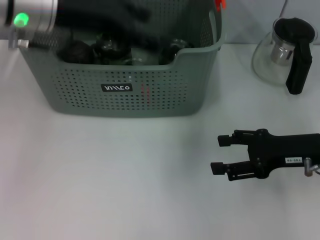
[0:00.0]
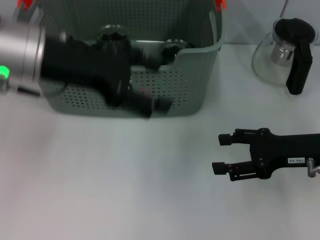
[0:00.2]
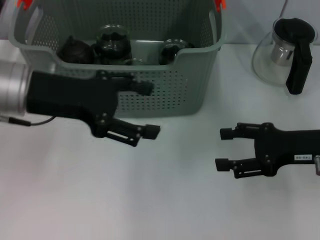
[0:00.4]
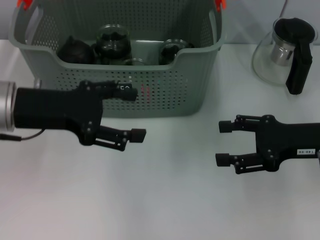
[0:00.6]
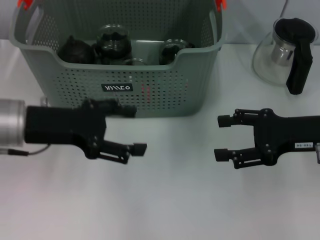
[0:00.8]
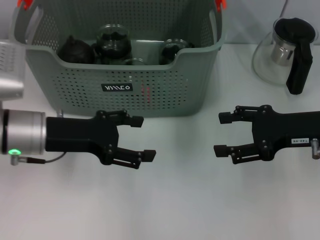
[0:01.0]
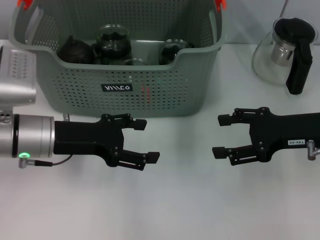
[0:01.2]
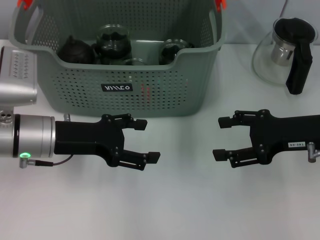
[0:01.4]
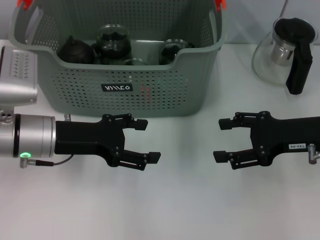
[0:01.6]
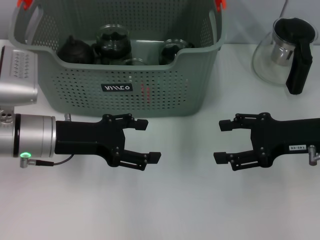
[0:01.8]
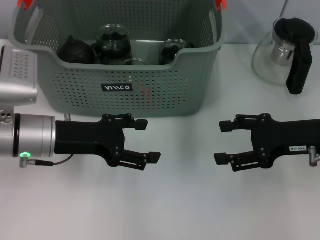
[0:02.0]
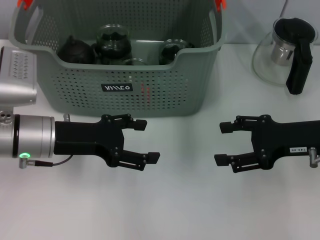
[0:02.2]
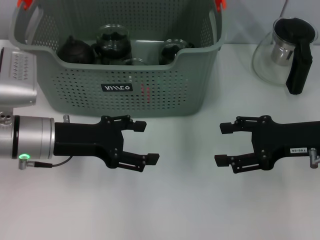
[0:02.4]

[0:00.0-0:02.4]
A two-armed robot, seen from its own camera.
Task of the whole recording: pick up the teacup on the table and place it into the storage bin, pick up the block on the table and place it into the storage bin.
0:00.0 to 0:01.2: The left gripper moves downward and backward, roughly 15 cm.
0:01.2 to 0:02.4: Both grippers stay put.
